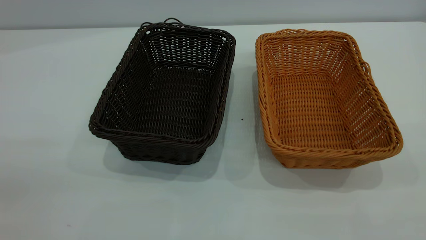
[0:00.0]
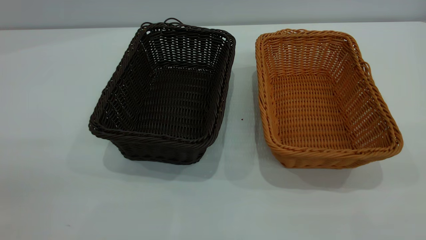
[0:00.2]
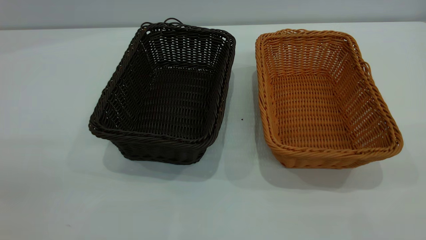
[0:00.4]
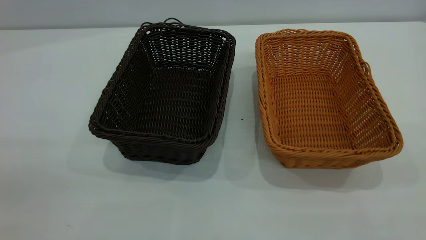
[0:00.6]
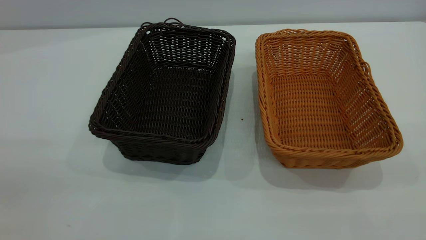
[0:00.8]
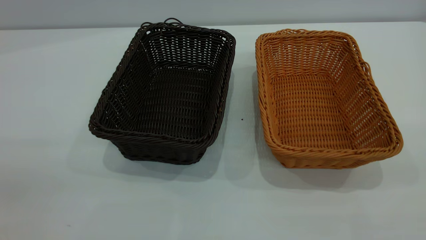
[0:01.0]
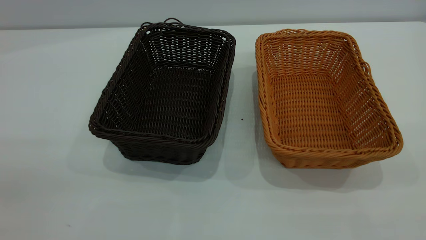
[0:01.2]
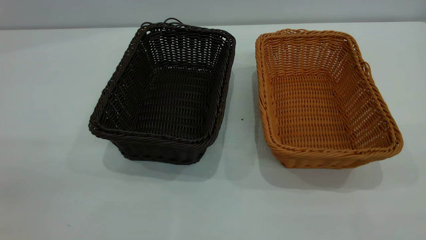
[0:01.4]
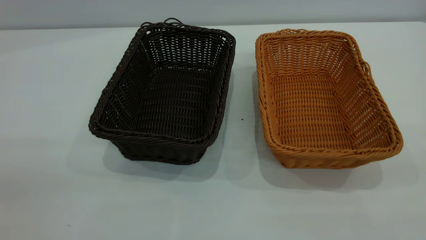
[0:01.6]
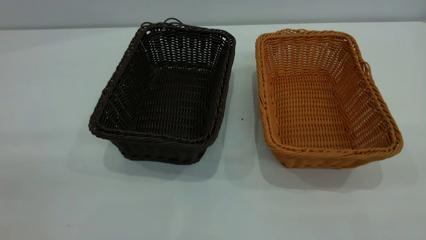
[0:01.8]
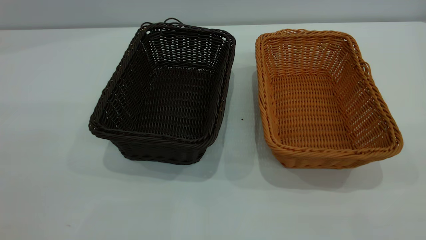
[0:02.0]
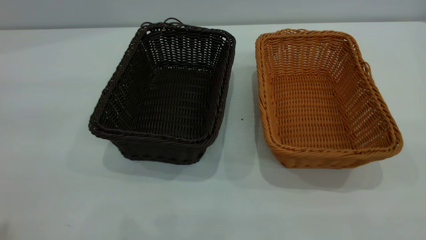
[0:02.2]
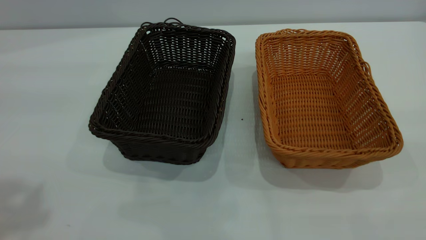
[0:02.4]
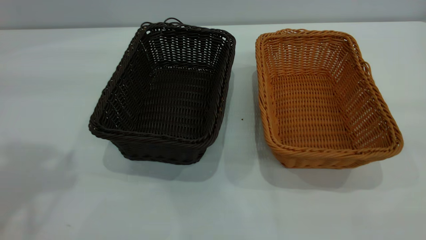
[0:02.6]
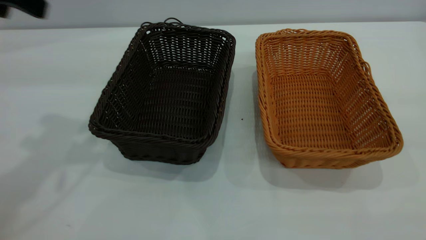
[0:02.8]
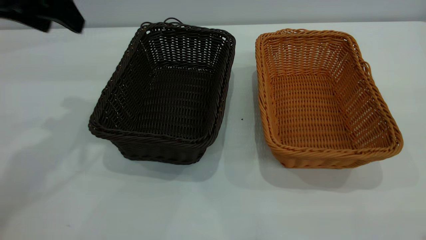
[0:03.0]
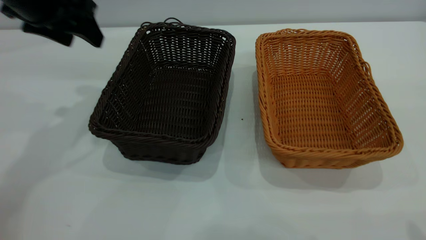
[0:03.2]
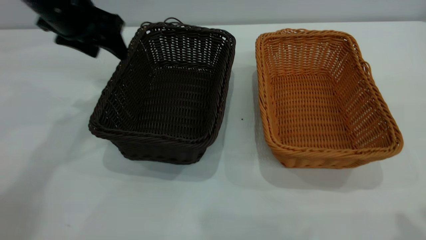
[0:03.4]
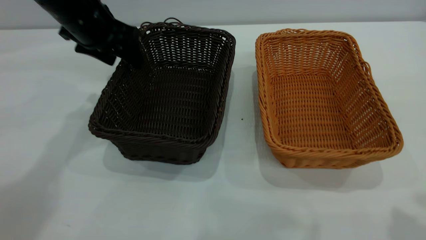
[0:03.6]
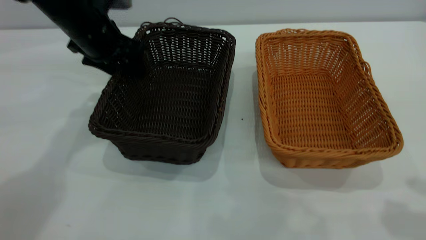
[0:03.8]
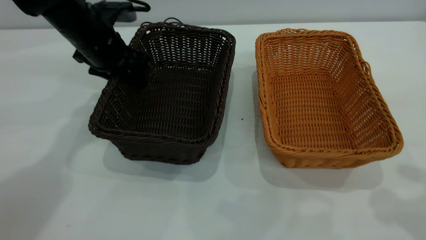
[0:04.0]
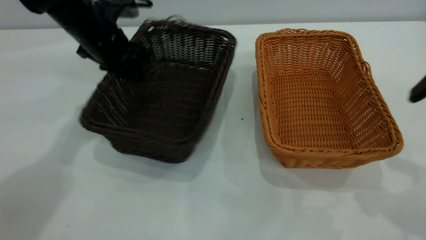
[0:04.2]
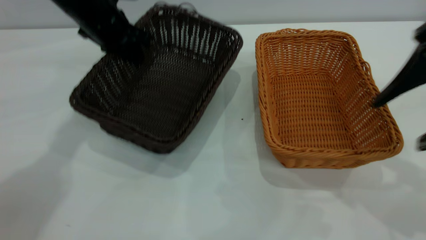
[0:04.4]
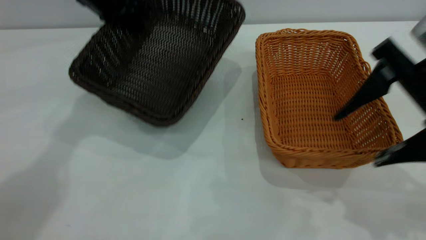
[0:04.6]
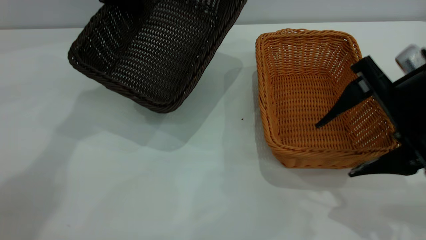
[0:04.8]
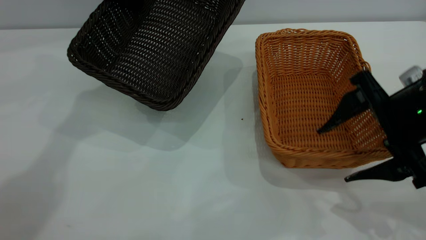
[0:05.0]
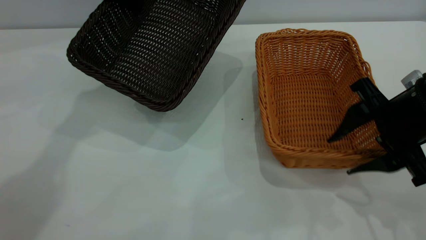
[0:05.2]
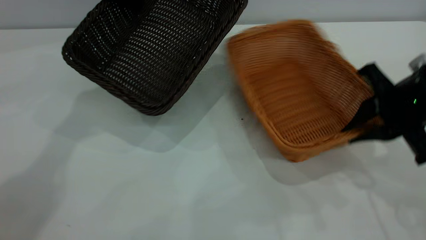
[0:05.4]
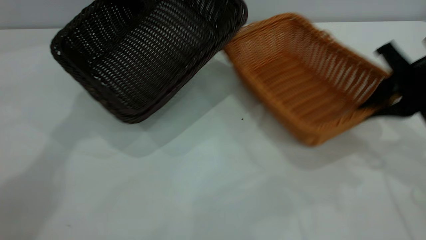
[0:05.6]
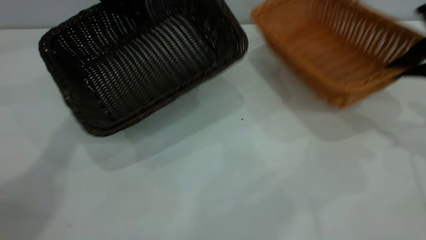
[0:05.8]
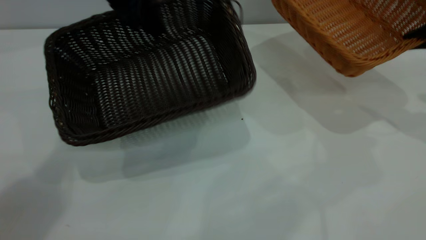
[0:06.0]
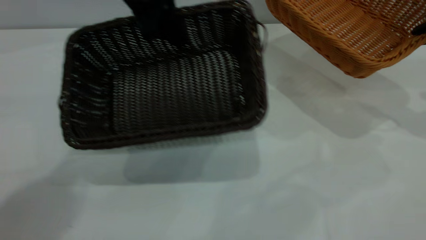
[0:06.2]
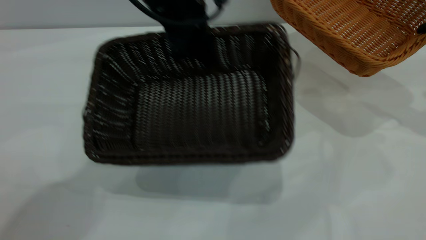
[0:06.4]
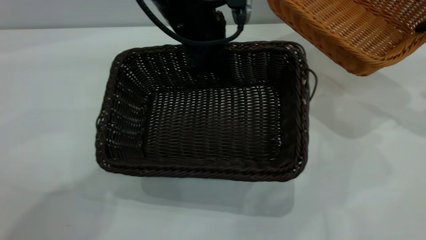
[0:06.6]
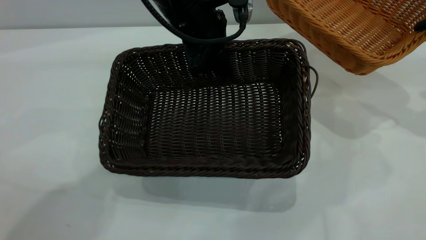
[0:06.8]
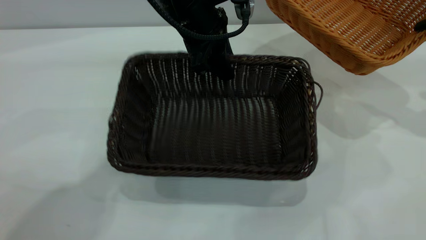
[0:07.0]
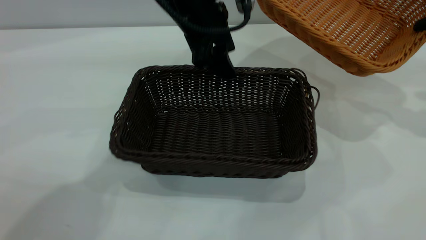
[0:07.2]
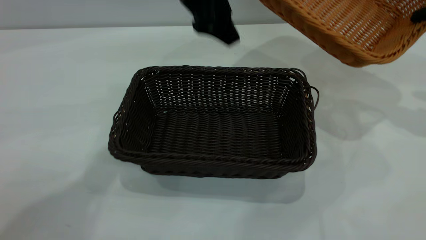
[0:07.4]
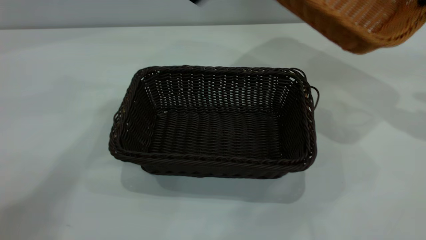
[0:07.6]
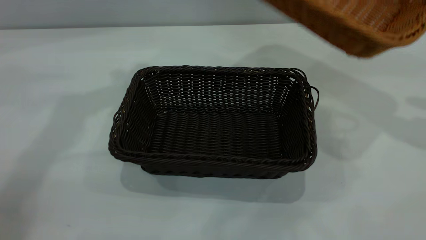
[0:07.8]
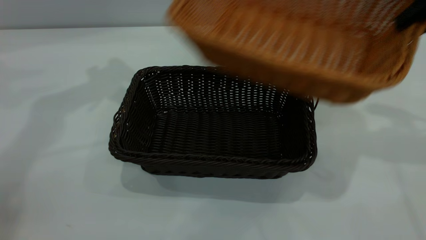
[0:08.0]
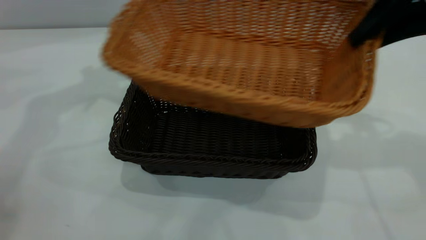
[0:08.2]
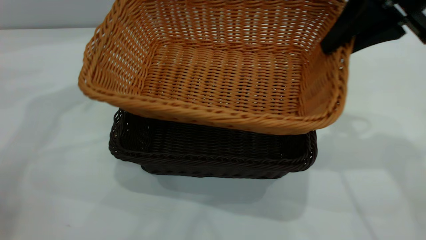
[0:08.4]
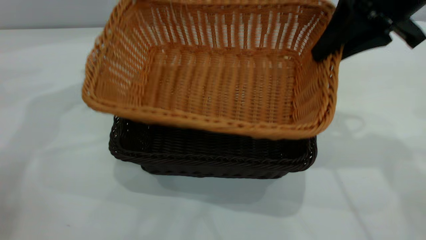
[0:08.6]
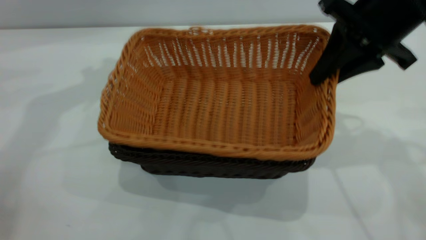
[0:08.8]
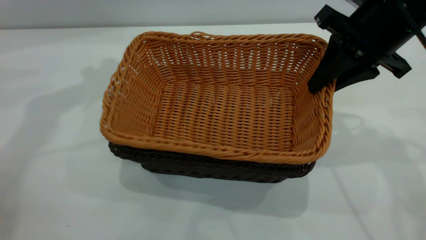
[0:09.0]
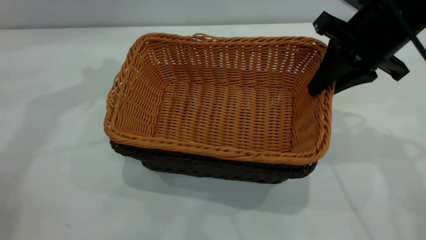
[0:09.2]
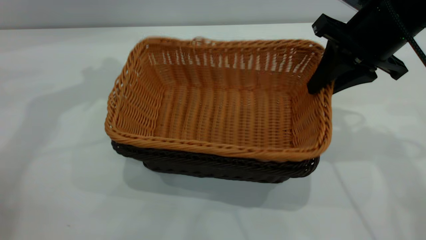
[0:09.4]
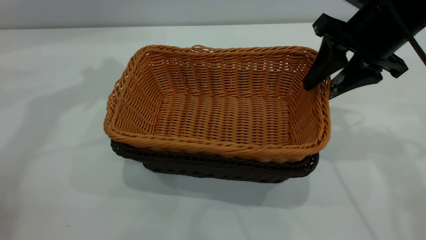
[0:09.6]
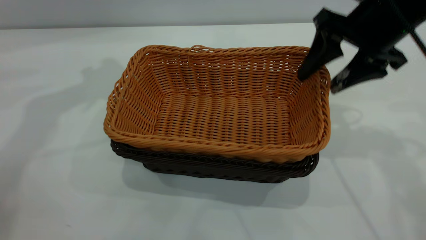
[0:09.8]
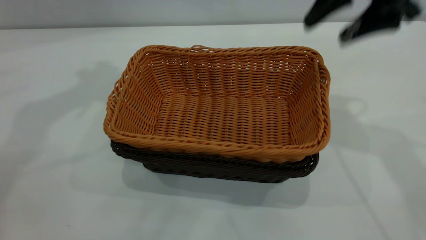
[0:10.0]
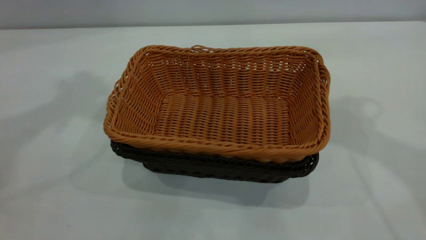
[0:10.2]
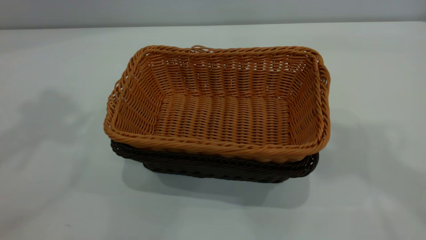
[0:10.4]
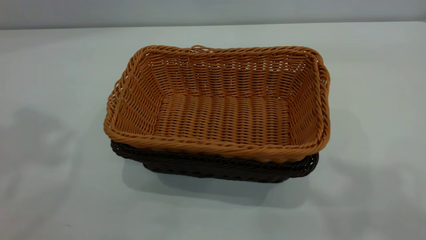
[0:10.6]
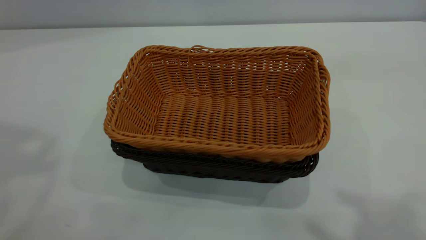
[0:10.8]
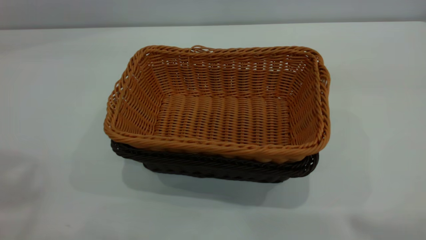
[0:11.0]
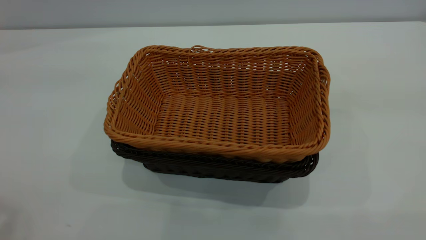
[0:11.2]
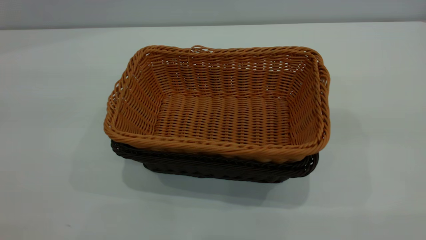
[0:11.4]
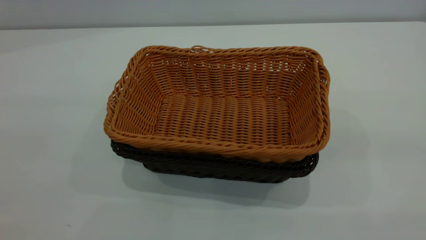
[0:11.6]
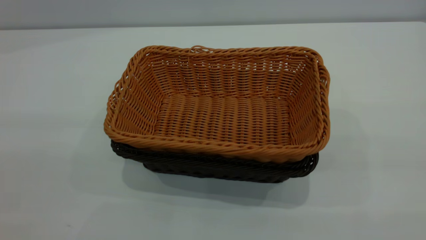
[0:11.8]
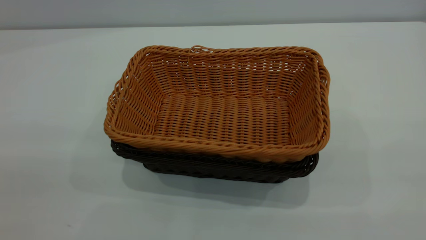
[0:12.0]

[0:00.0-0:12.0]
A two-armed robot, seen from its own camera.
Task of the whole recording: the left gripper grasp the black basket and place it in the center of the table, the right gripper grasp the brown basket and place it inside the black one.
Step, 0:00.0 to 0:06.0: Pick up the light basket with the right gripper.
Step, 0:06.2 to 0:07.2: Move the dark basket to the center of view.
Step, 0:07.6 to 0:09.8: Place the light basket on the dark basket.
0:00.0 to 0:01.6: The two grippers keep their place.
0:01.6 to 0:03.0: The left gripper moves forward, about 35 cm.
0:03.0 to 0:04.4: The left gripper moves forward, downward and to the right, roughly 15 cm, and closes up. Meanwhile the right gripper goes some 20 cm forward and downward.
0:04.4 to 0:06.0: The right gripper moves forward and to the right, approximately 15 cm, and closes up. The left gripper heads upward, covering some 5 cm.
0:06.0 to 0:07.6: The right gripper is displaced upward by about 5 cm, while the left gripper moves upward, some 10 cm, and opens up.
0:07.6 to 0:09.0: The left gripper travels to the left by roughly 10 cm; the right gripper is displaced to the left by roughly 15 cm.
0:09.0 to 0:10.4: The left gripper travels upward and backward by some 25 cm; the right gripper moves upward, about 25 cm, and opens its fingers.

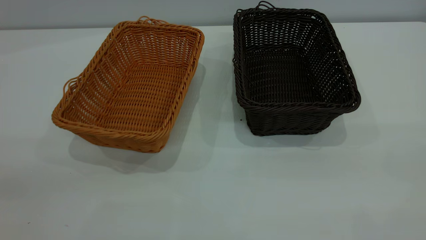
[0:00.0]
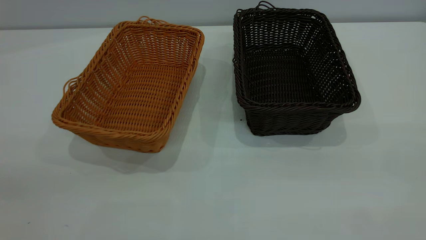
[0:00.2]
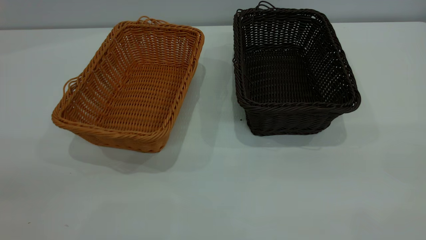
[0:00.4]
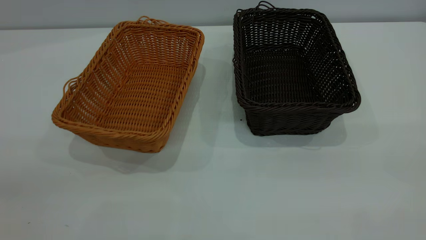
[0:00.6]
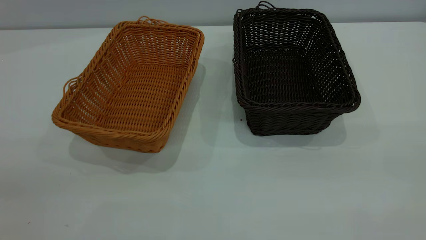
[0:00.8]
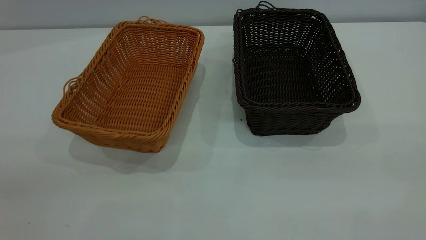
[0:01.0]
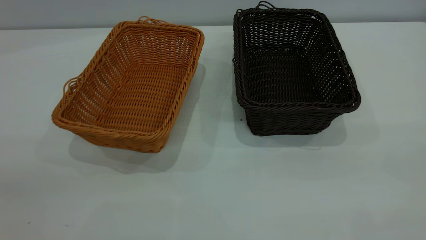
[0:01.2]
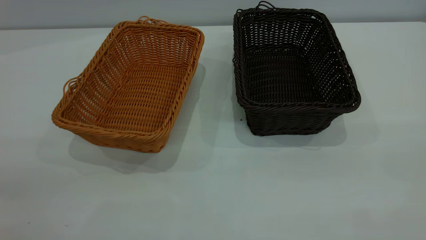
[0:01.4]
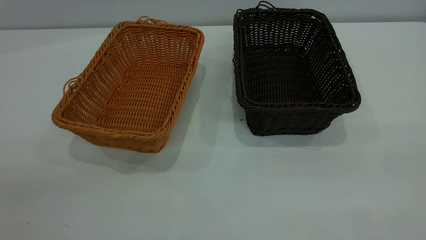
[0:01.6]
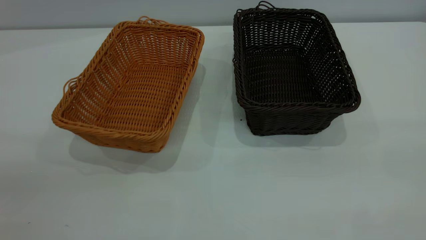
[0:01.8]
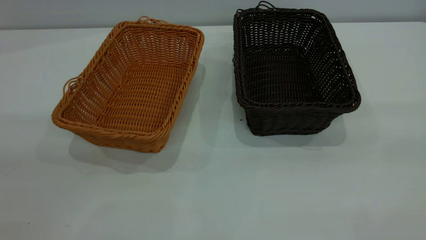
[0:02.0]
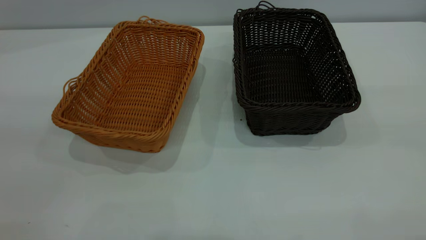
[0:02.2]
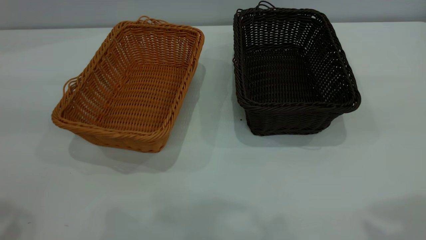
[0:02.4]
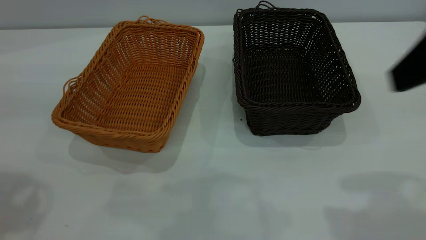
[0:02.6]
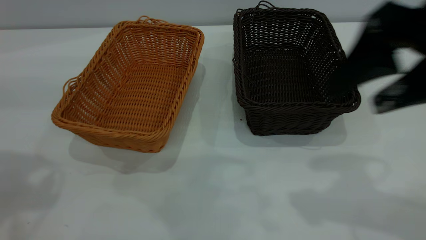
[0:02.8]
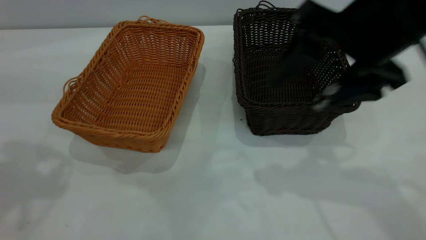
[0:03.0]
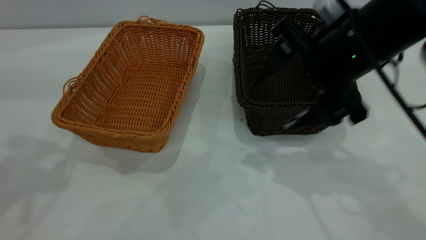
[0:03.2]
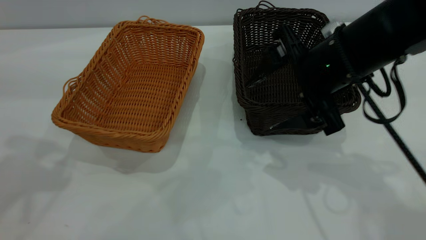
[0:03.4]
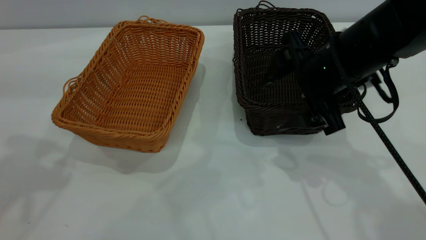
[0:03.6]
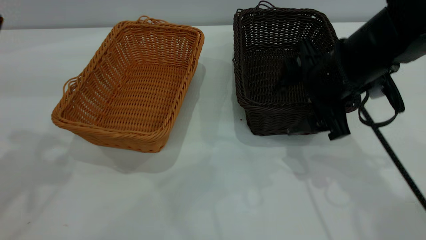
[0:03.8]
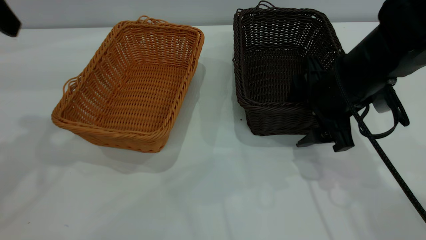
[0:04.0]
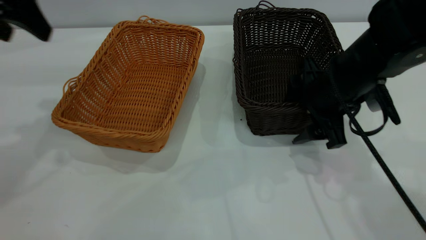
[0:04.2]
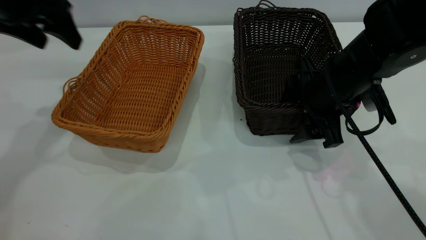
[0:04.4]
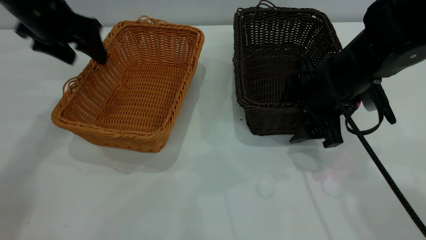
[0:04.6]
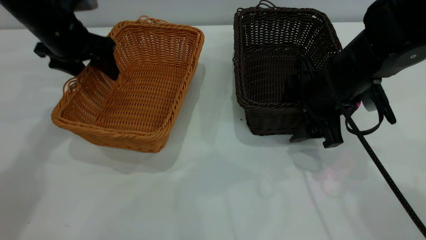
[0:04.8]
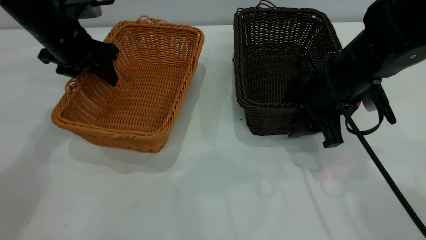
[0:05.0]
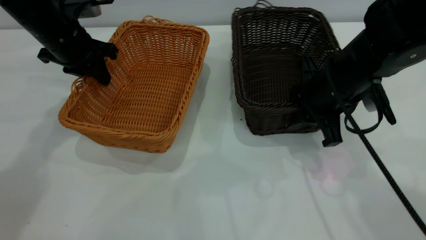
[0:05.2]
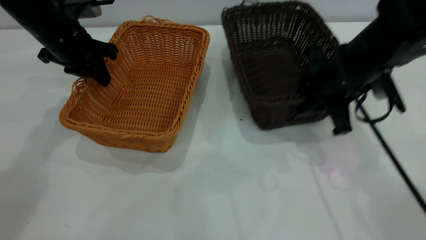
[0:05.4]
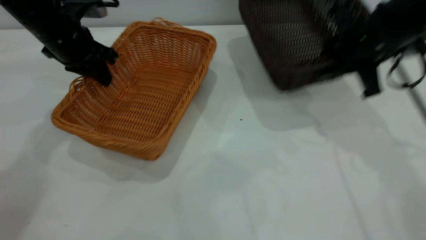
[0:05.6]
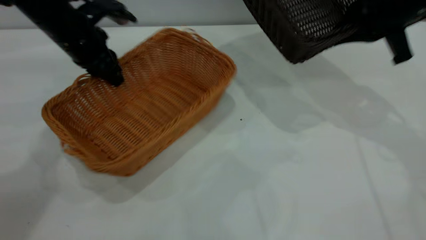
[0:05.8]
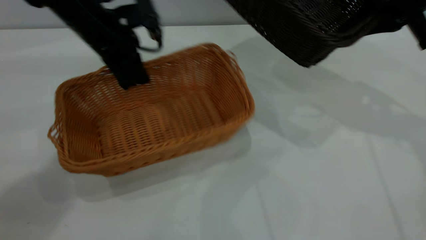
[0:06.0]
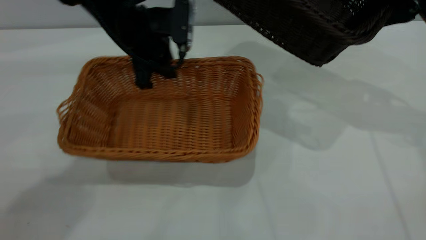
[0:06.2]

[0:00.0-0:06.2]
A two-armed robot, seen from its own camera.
Task of the whole recording: the left gripper grasp the brown basket and place it in the center of the table, the right gripper grasp the black basket and place it inside the brown one.
Step, 0:00.0 to 0:05.4: Pick up the light basket with the right gripper.
0:00.0 to 0:01.6: The two grippers keep their place.
0:01.6 to 0:03.2: The right gripper heads forward, downward and to the left, covering some 35 cm.
0:03.2 to 0:04.6: The left gripper moves forward and downward, roughly 25 cm. The right gripper moves downward, some 10 cm.
0:04.6 to 0:06.2: The right gripper moves upward, to the right and forward, some 20 cm, and closes. The left gripper heads to the right, covering about 15 cm, and closes.
